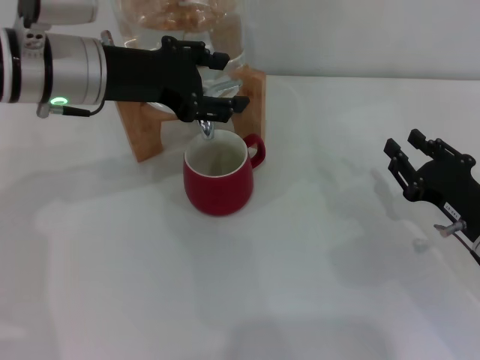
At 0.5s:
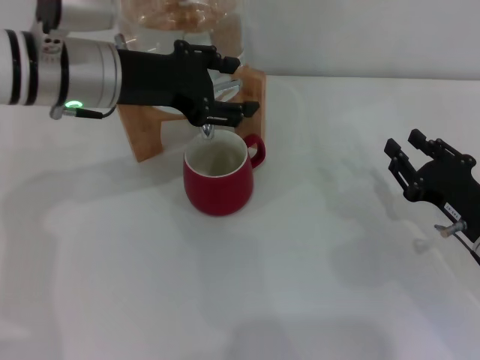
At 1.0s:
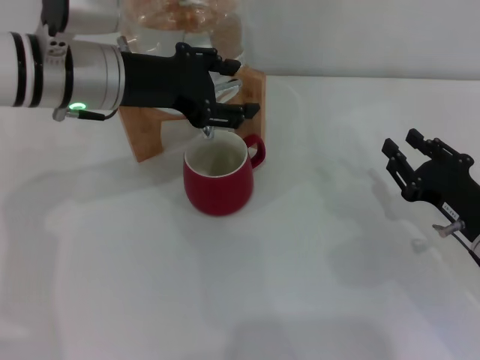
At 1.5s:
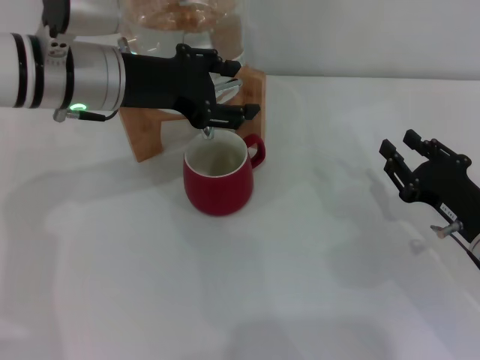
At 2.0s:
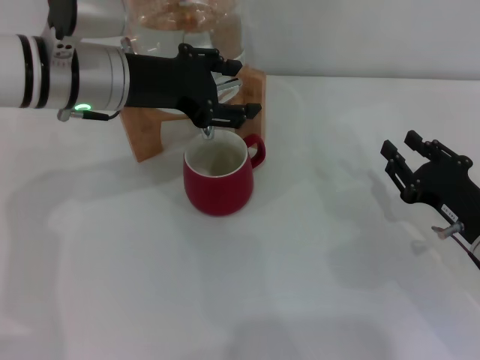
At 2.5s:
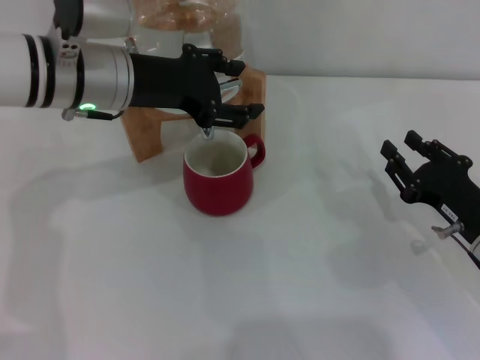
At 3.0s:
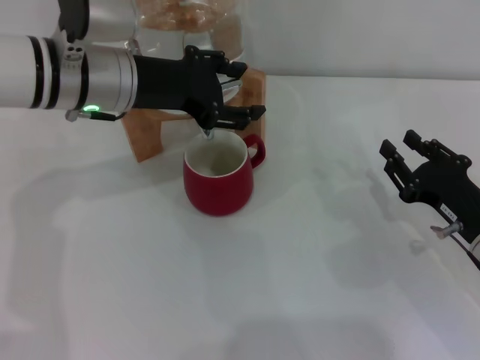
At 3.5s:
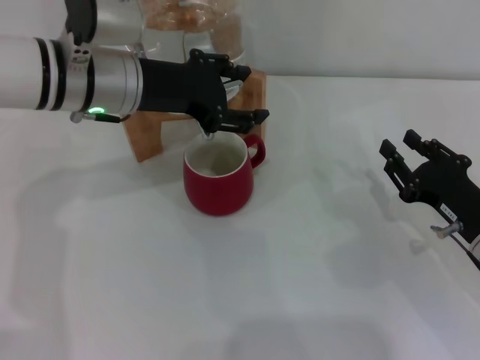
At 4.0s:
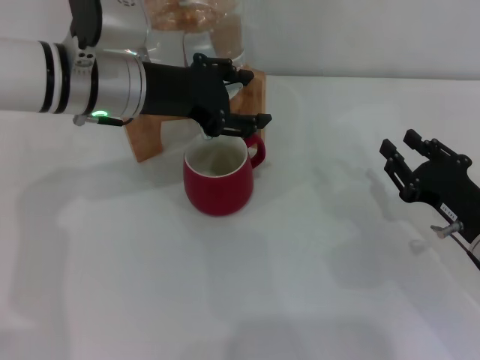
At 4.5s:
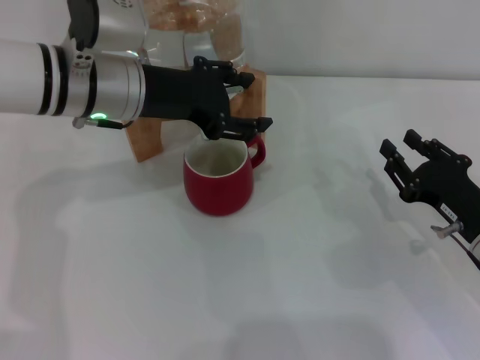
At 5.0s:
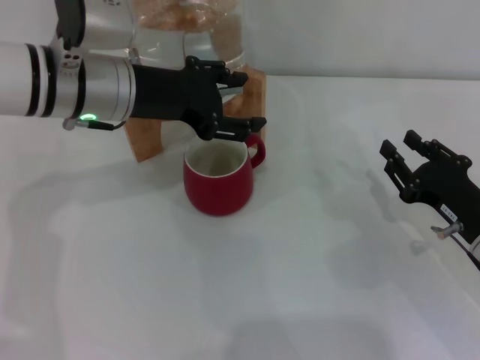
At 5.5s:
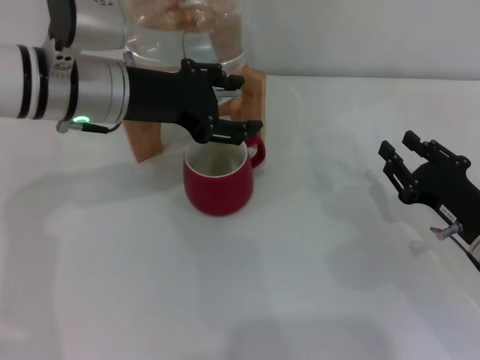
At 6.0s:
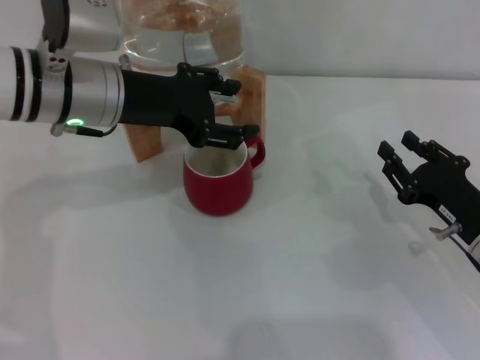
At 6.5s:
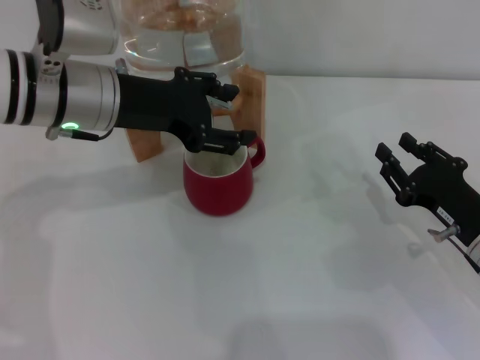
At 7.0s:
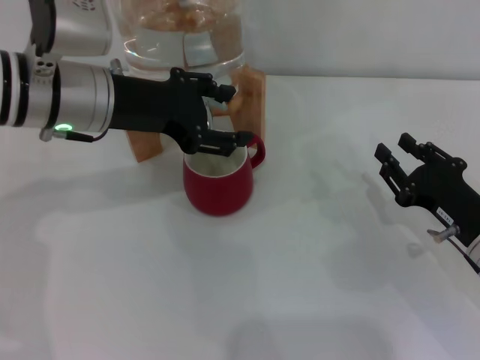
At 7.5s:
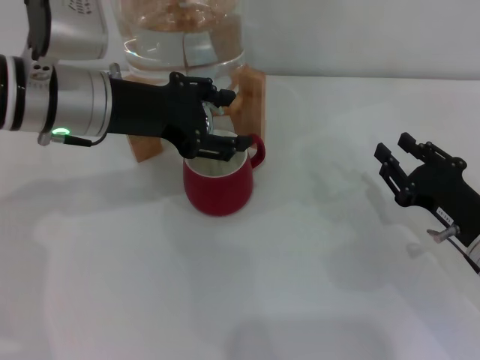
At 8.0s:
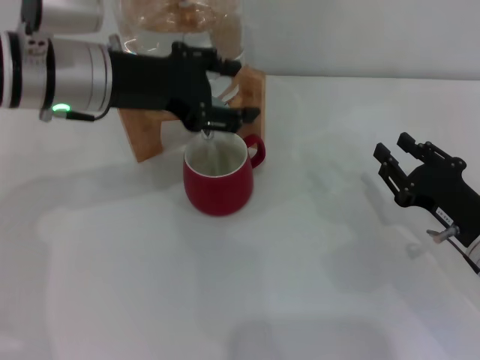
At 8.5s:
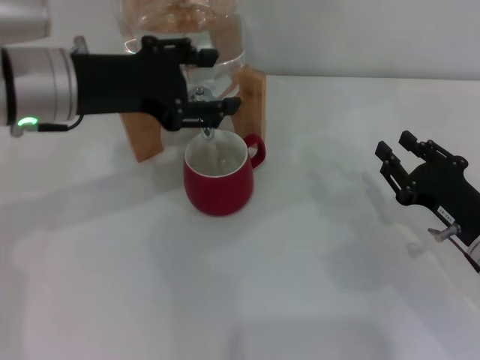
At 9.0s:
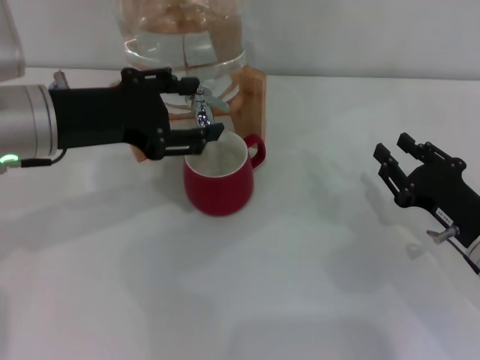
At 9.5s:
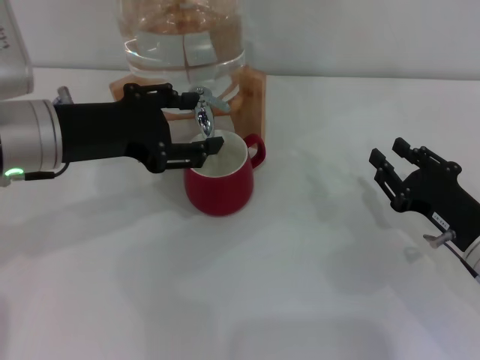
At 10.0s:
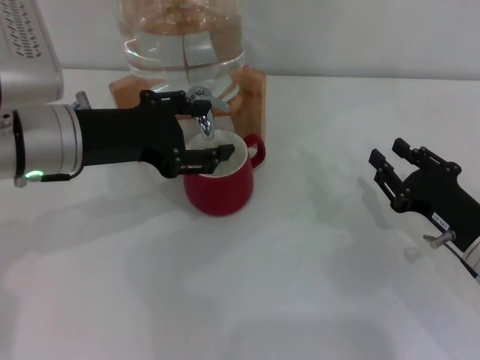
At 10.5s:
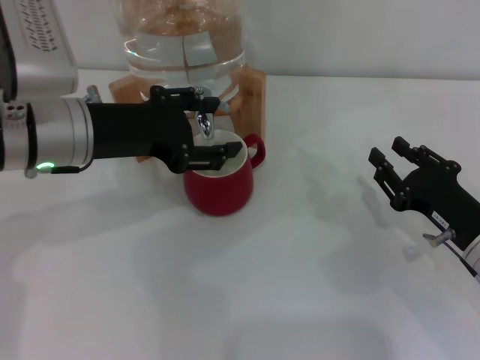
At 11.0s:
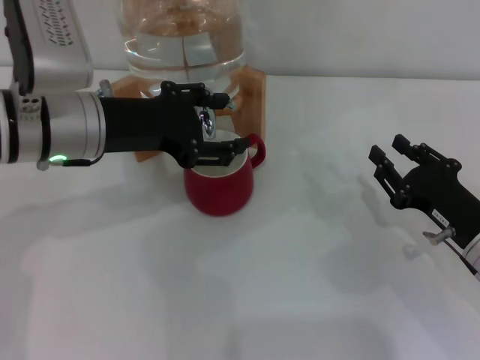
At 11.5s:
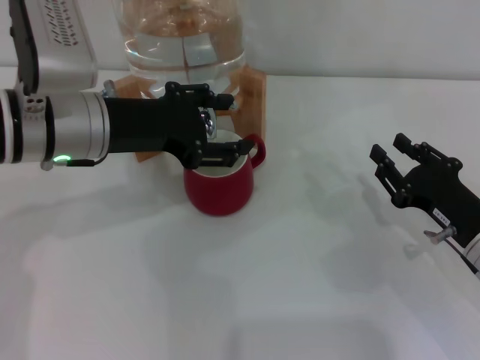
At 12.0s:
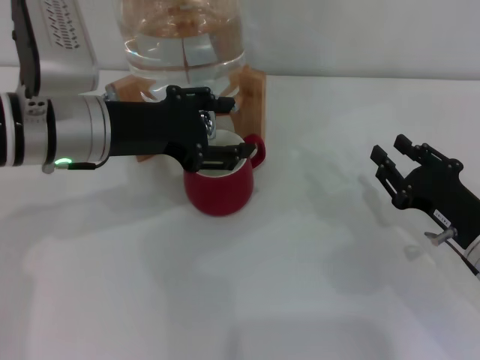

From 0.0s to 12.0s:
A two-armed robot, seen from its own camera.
Task of the whole recording: the right gripper pick up the red cup and place it horizontally under the faucet, the left gripper turn on the faucet to fill the cup, and then turn off the faucet.
Step, from 0.0s to 7.5s: Open the dispenser valve and fill the cup with water with the left gripper.
From 0.0s to 8.0s: The grippers move only a little.
From 8.0s to 10.0s: The left gripper shifts by roughly 5 cm.
From 10.0s to 12.0s: The grippers move only a little.

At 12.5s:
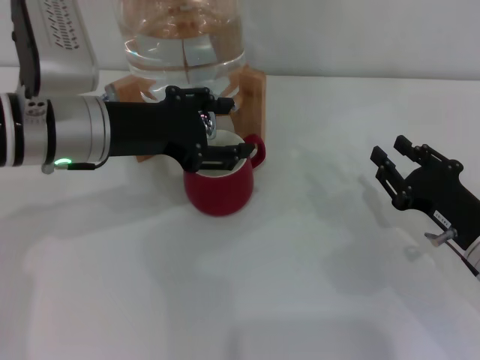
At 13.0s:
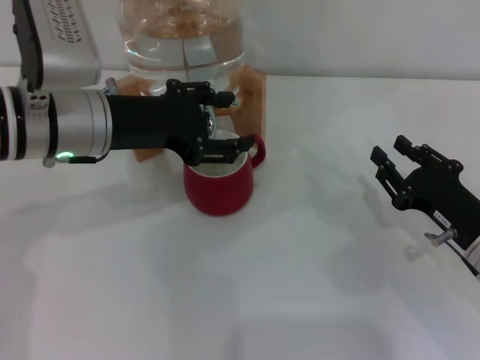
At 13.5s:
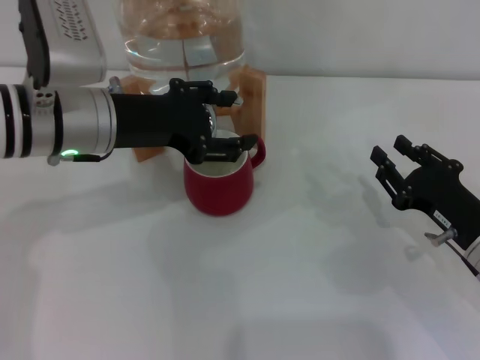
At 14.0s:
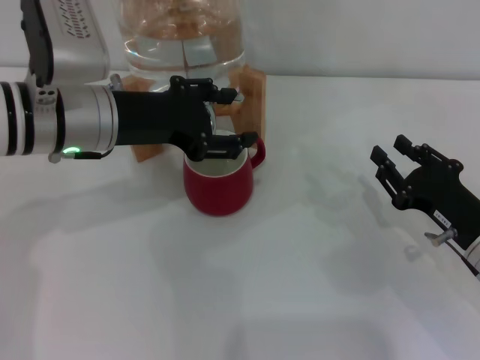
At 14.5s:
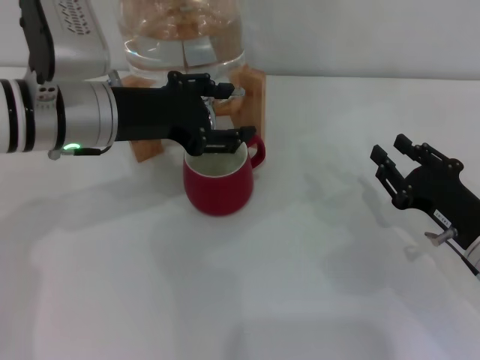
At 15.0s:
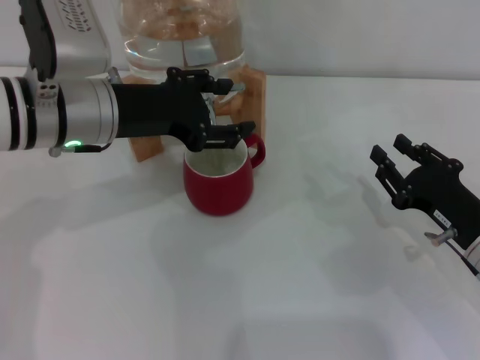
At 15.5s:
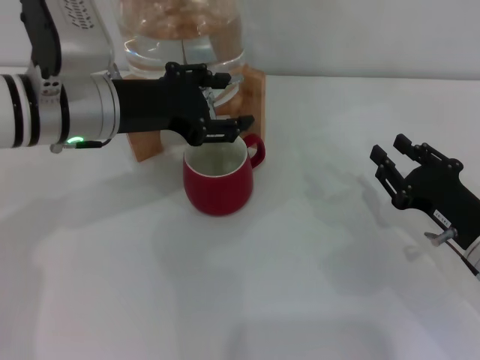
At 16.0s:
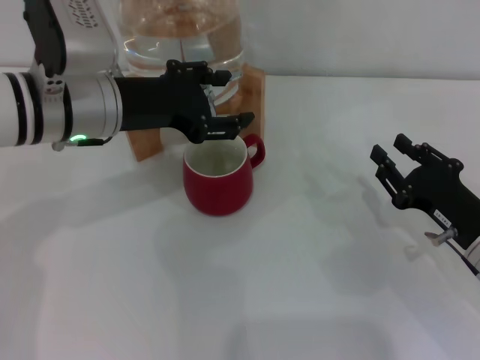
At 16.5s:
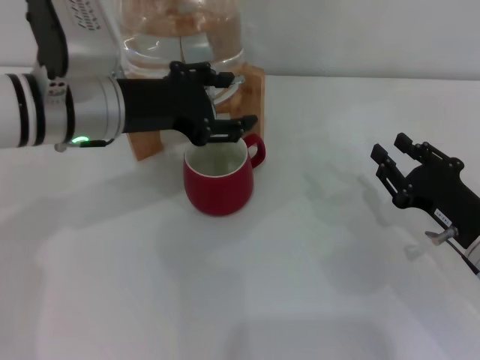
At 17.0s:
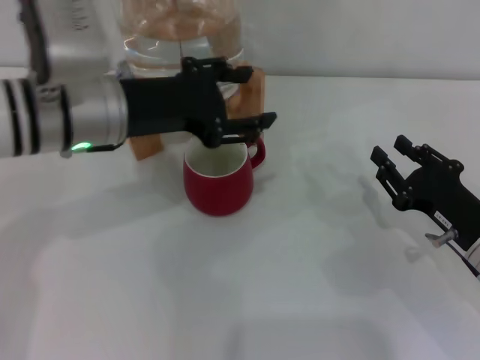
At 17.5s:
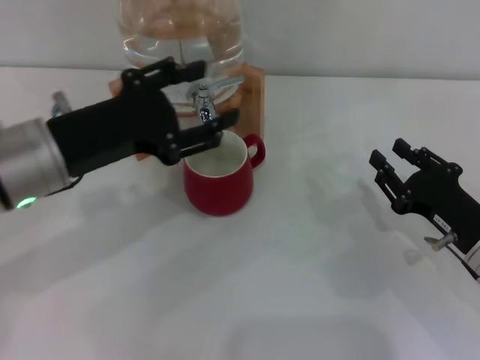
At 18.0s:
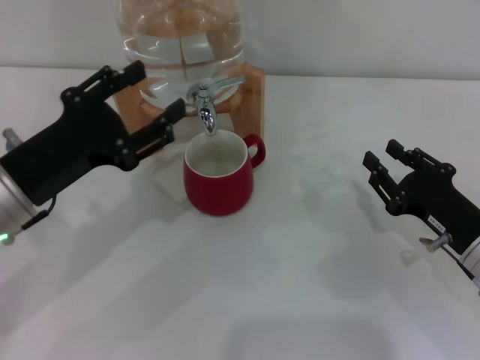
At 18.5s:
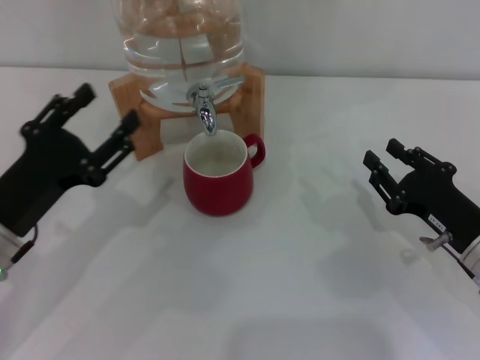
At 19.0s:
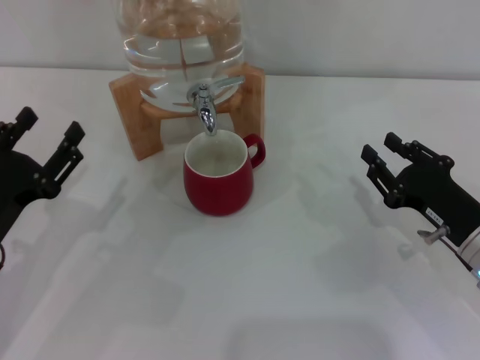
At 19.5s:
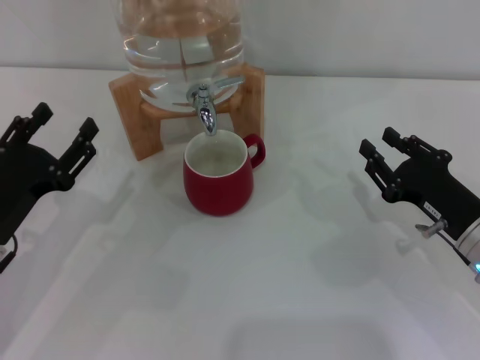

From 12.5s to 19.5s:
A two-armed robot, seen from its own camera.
Task of the whole recording: the right gripper pick up the red cup and place it horizontally under the faucet, the left gripper turn on the faucet to fill the cup, and then turn off the faucet.
Step, from 12.5s to 16.5s: Close the dispenser valve with the left gripper.
From 12.5s to 14.5s: The two grippers keep their place.
From 14.5s to 16.0s: Both grippers stay put.
From 16.0s to 17.5s: The left gripper shifts some 5 cm backward.
From 17.5s to 19.5s: The left gripper is displaced downward and to the left by about 15 cm.

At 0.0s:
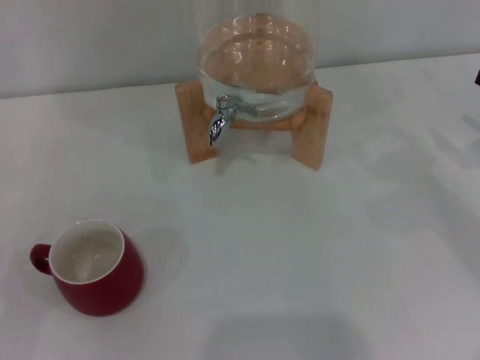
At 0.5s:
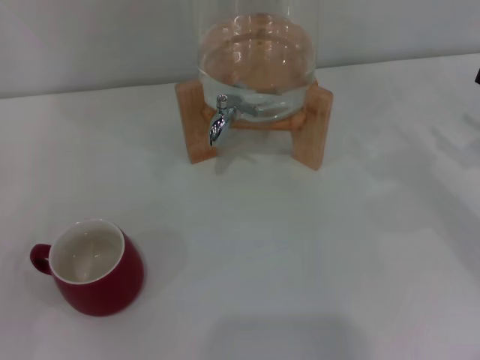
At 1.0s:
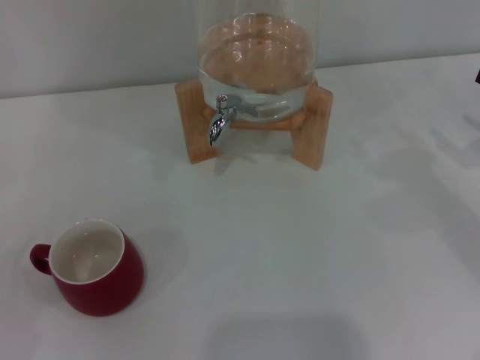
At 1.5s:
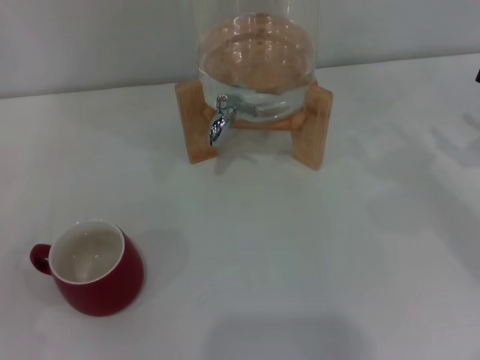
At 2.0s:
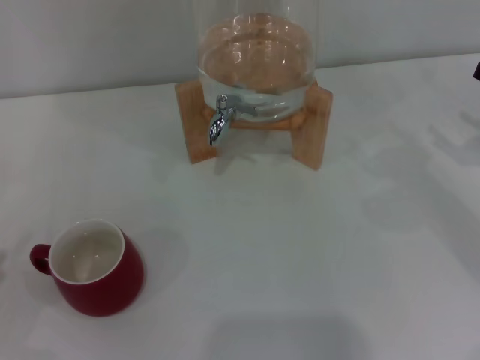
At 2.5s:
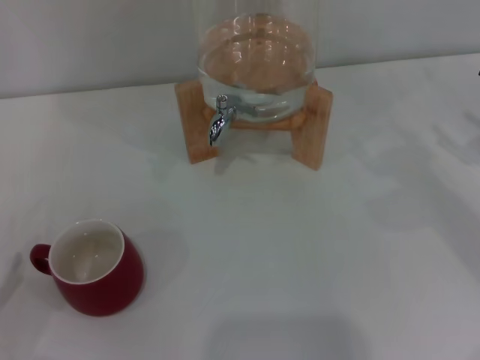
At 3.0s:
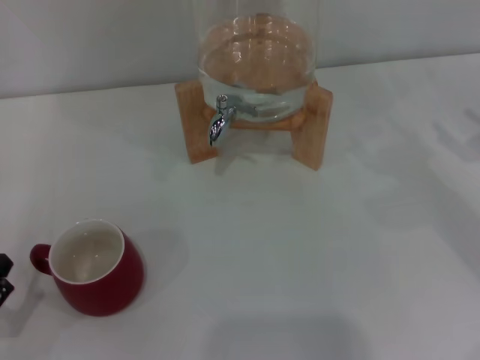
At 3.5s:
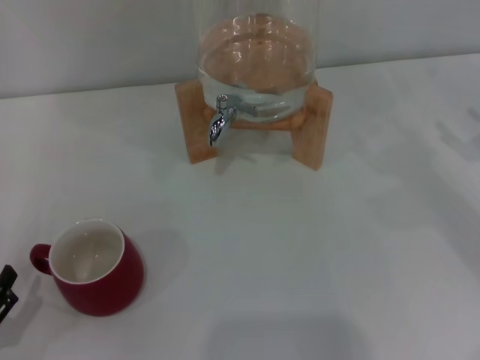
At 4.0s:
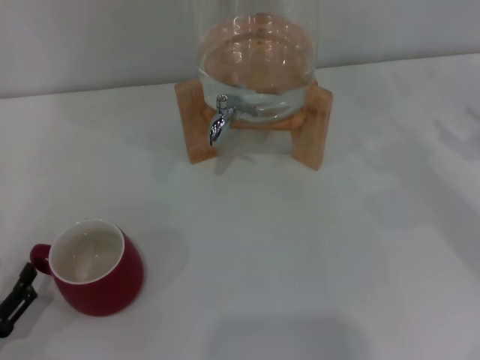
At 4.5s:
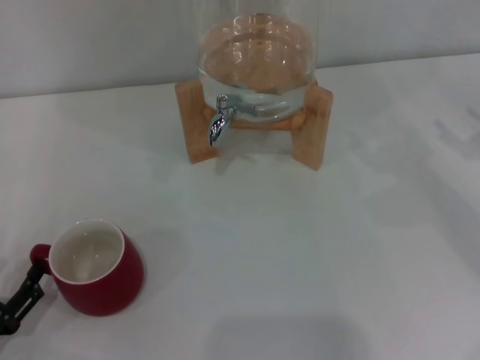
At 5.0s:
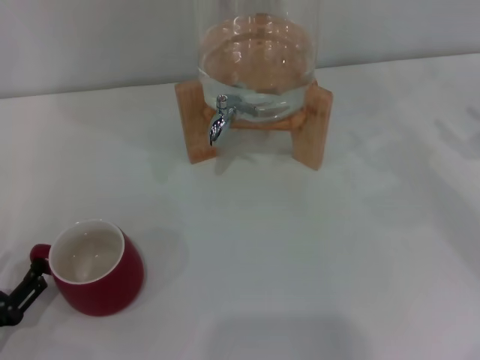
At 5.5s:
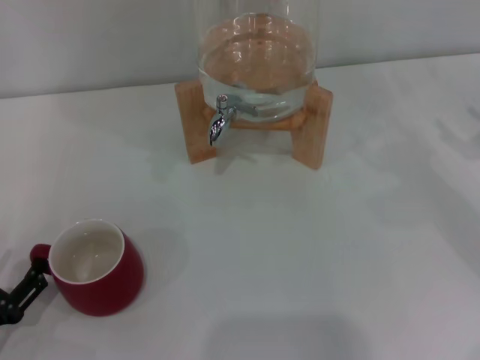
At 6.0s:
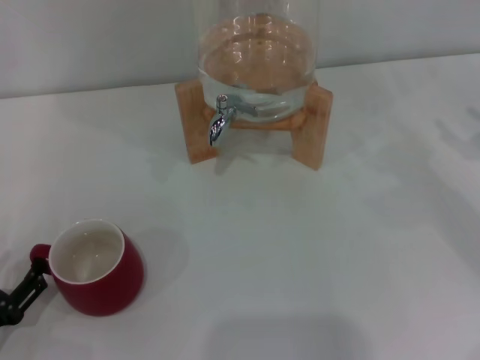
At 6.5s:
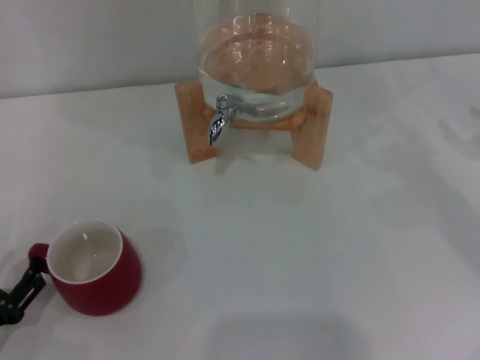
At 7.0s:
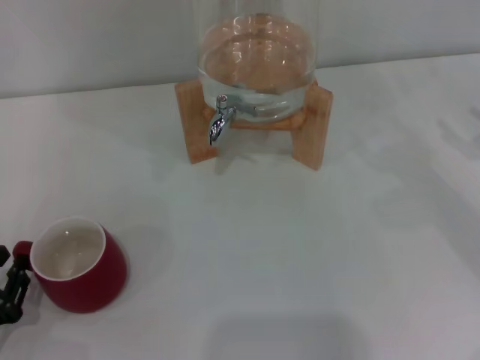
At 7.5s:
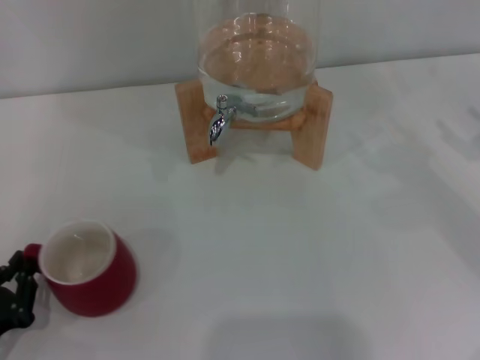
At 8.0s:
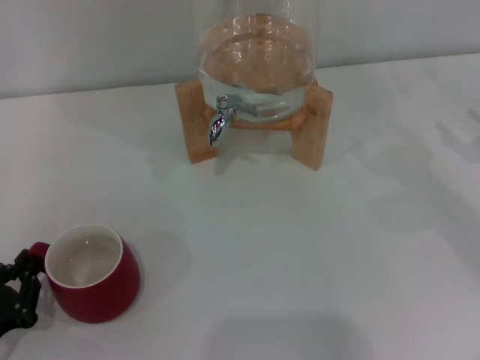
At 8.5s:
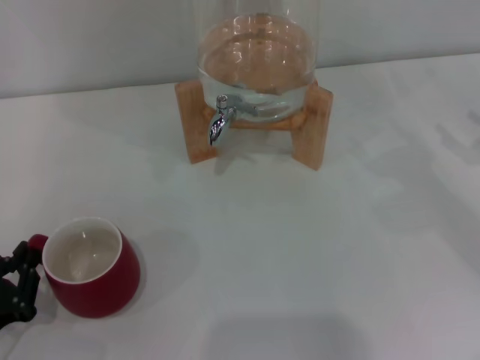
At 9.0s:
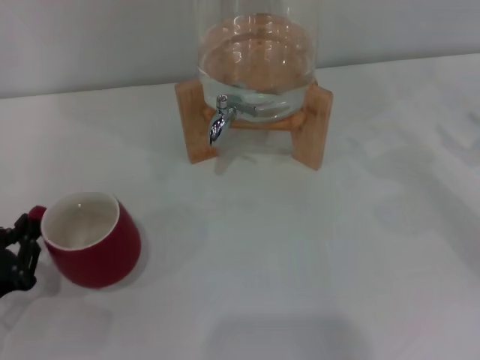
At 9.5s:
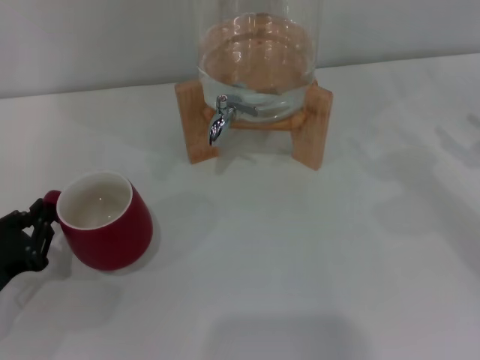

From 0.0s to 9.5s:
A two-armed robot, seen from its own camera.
Task of the whole recording: the left gripper pick up the red cup and place it horizontally under the faucet, the right gripper turn on the faucet to fill the cup, and then turn off the faucet.
From 2.0s to 4.0s: The left gripper travels to the right and downward by approximately 10 cm.
From 5.5s to 7.5s: The left gripper closes.
From 7.5s to 9.5s: The left gripper travels forward by about 5 cm.
